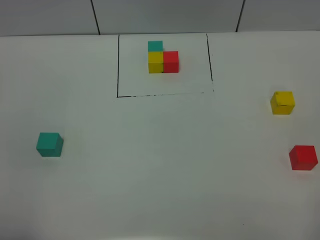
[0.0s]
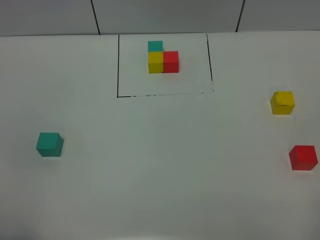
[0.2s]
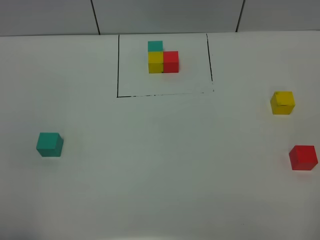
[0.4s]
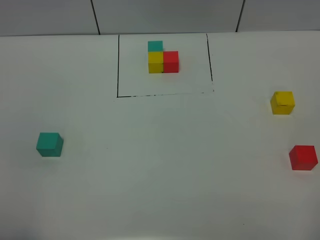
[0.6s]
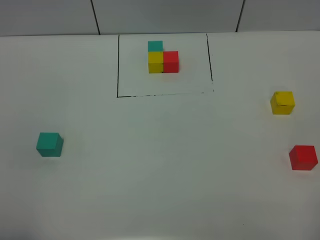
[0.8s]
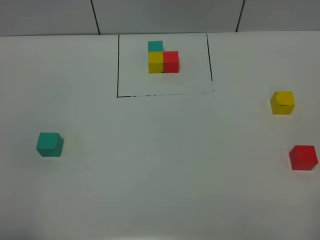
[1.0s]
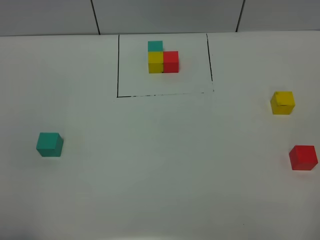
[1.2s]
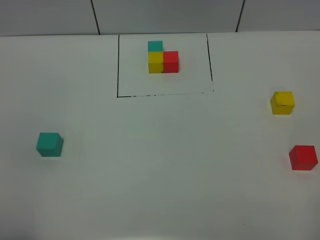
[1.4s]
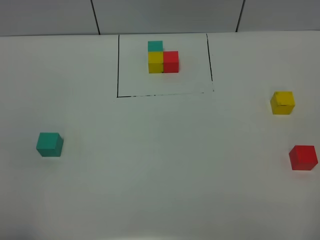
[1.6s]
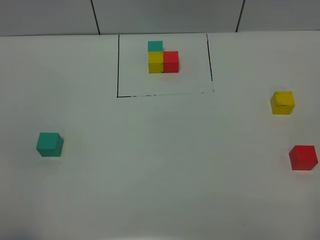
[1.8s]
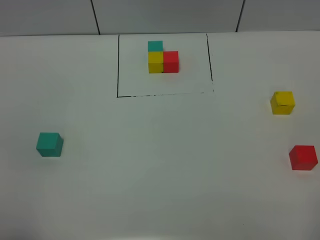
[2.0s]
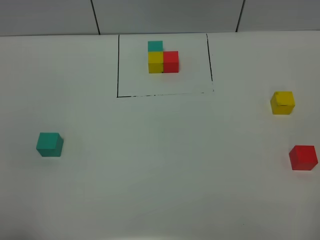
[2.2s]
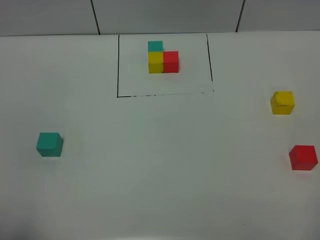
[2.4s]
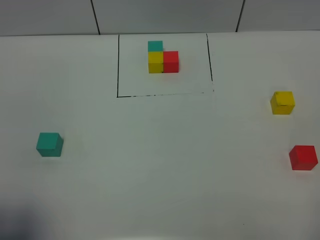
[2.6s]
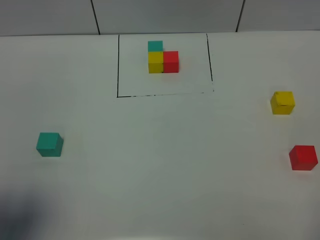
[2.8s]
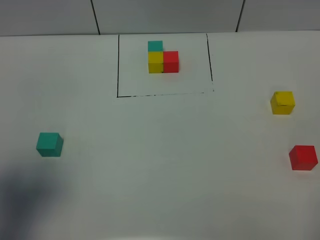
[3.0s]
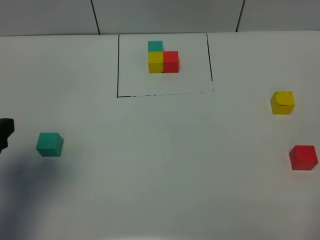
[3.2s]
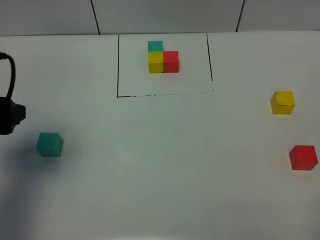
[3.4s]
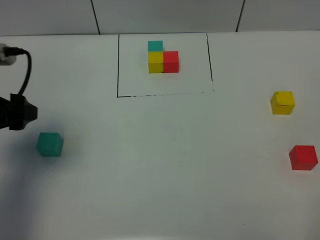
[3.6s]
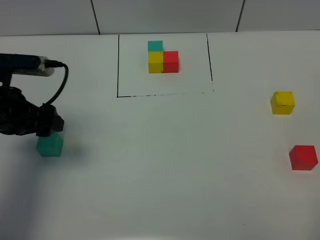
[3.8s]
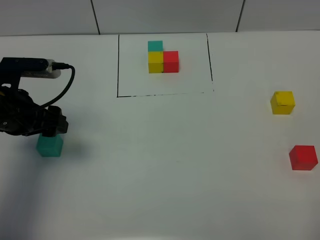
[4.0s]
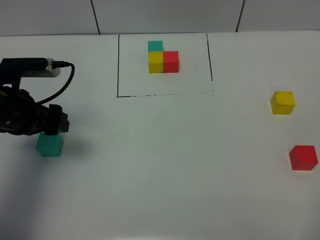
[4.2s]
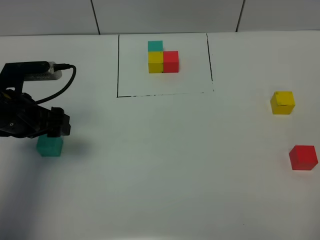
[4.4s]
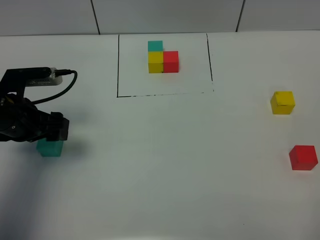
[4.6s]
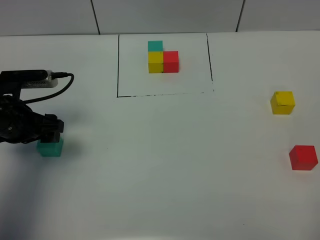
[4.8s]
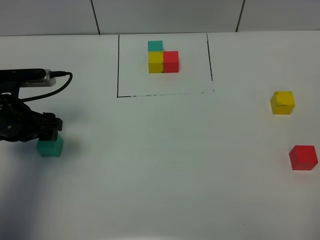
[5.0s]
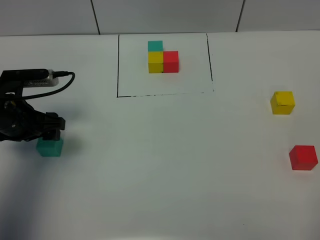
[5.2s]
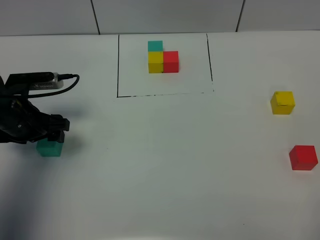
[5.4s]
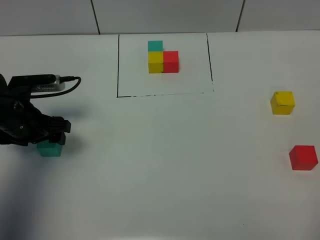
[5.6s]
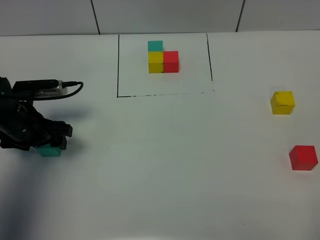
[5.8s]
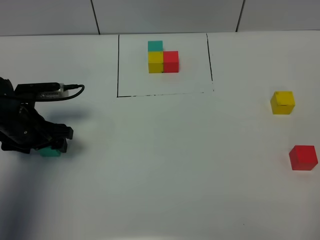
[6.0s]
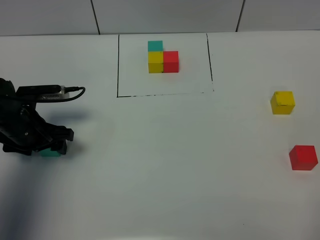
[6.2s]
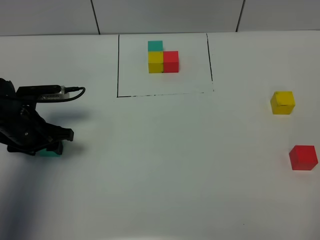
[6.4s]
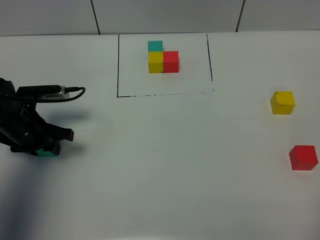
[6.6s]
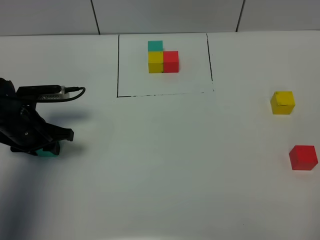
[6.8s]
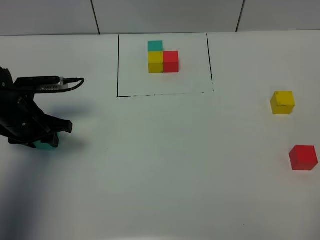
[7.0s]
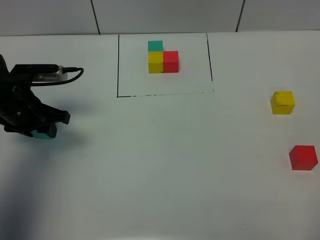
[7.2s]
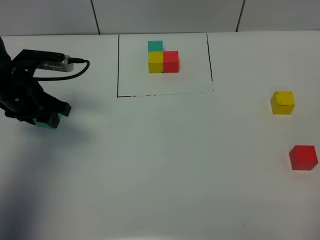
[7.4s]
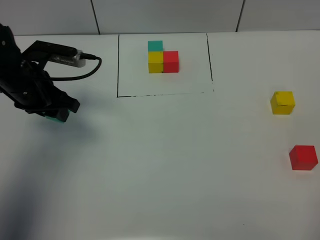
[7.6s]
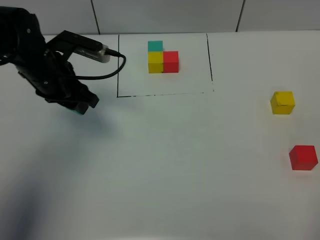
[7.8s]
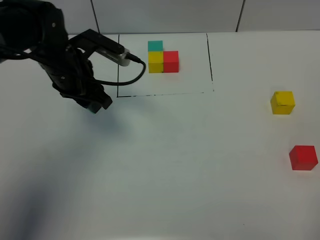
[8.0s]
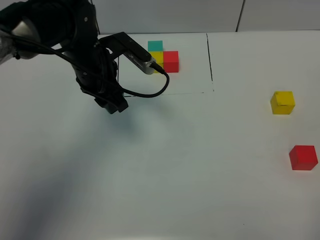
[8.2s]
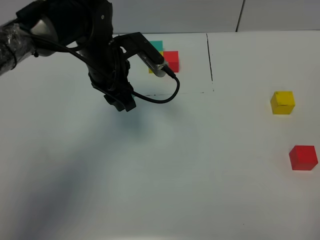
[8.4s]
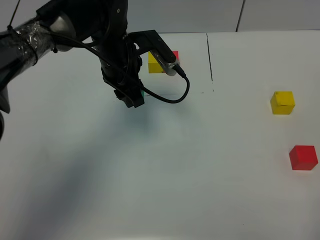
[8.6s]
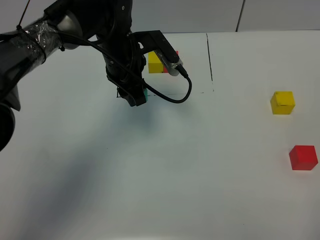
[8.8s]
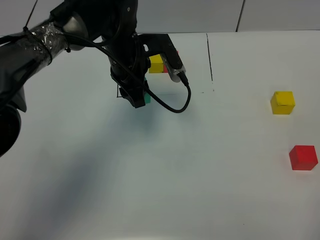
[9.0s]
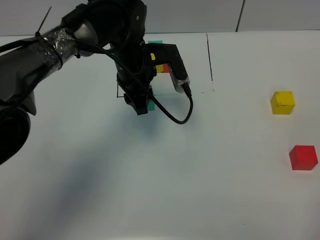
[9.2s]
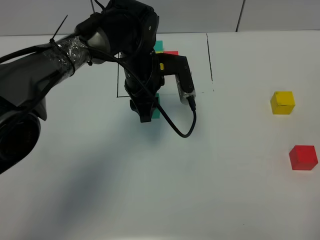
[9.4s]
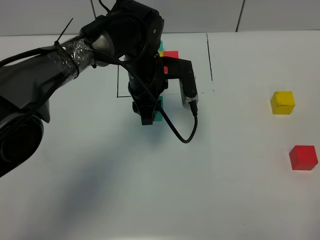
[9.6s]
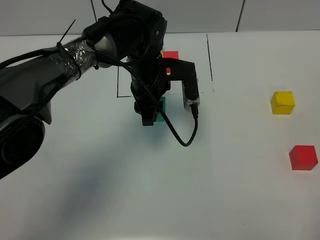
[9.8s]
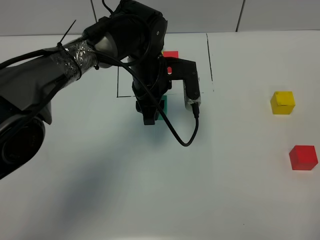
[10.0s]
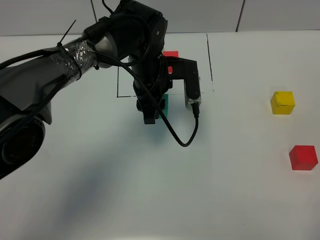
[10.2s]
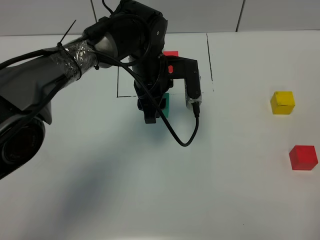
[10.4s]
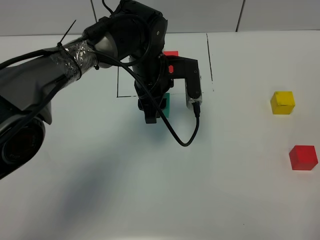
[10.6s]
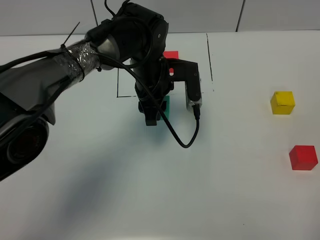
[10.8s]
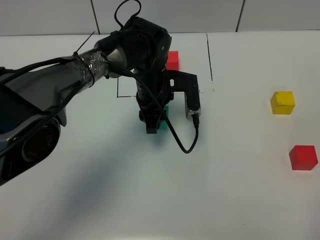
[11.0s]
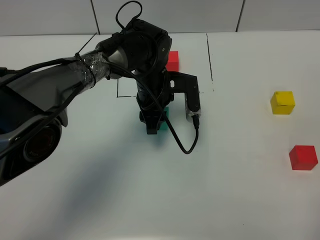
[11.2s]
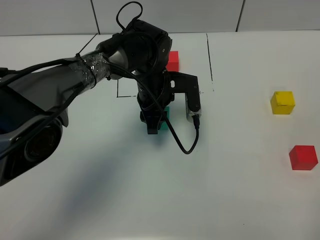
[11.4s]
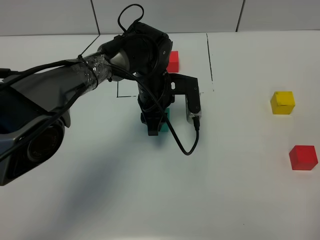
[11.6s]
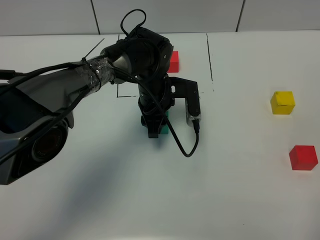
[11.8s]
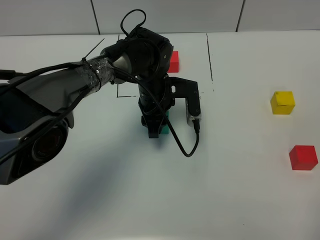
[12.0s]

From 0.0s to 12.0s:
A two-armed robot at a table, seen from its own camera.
Task of the whole recording: According to the building block template in front, assemble the scattered blocks together.
From 0.0s to 1.6s: The two grippers keep their place.
From 1.6s to 3.0s: The left gripper moves forward, approximately 15 cm, and opens up.
From 3.0s to 4.4s: The left gripper is displaced forward and downward by approximately 20 cm.
From 4.4s to 6.0s: The left gripper moves downward, some 5 cm.
From 6.0s to 7.6s: The left gripper heads upward, covering approximately 10 cm, and closes up.
From 7.6s to 9.0s: The left gripper travels to the right by about 15 cm.
From 10.4s to 12.0s: The left gripper is displaced downward by approximately 5 cm.

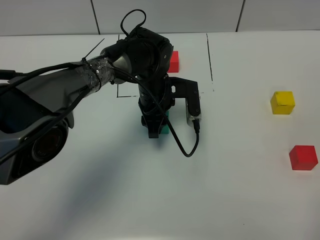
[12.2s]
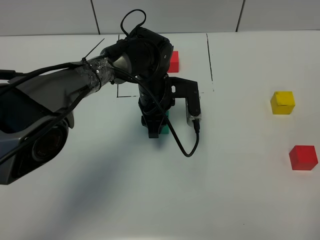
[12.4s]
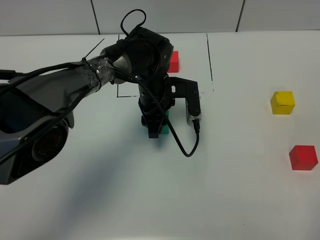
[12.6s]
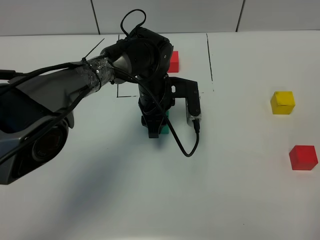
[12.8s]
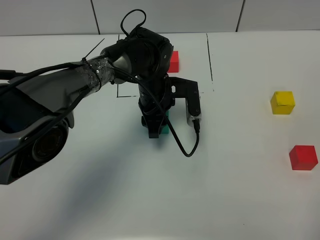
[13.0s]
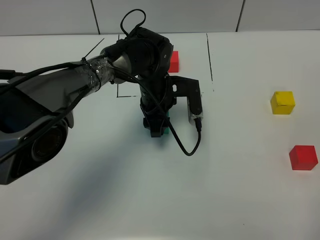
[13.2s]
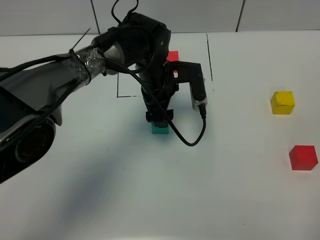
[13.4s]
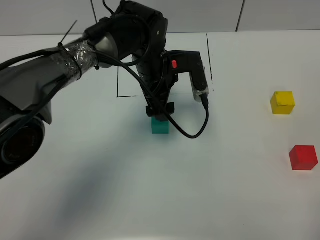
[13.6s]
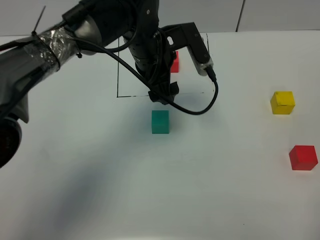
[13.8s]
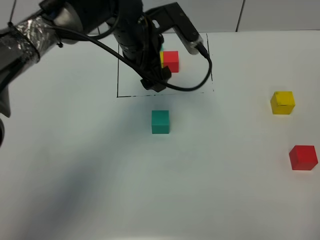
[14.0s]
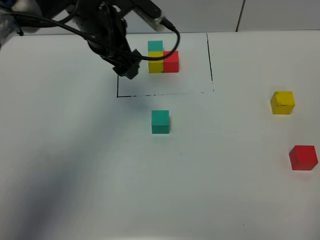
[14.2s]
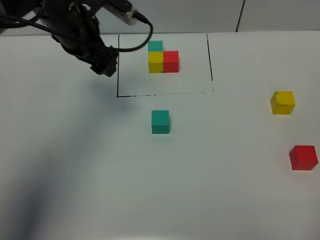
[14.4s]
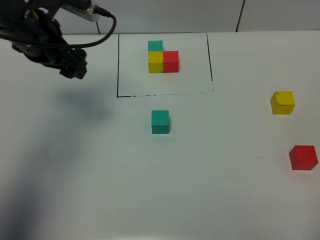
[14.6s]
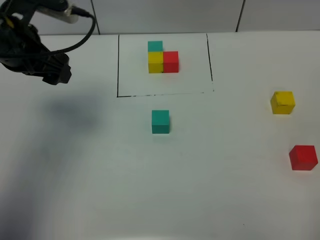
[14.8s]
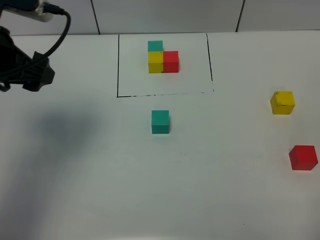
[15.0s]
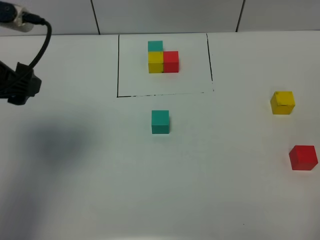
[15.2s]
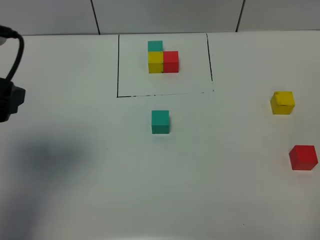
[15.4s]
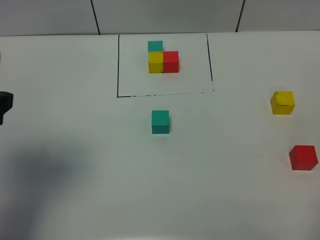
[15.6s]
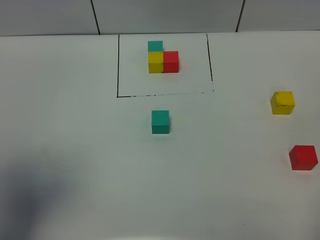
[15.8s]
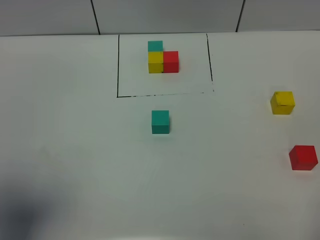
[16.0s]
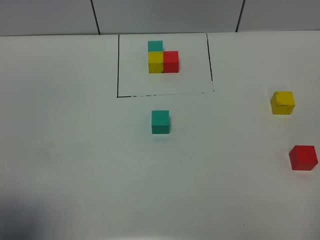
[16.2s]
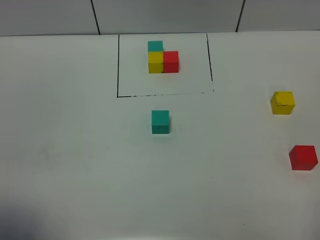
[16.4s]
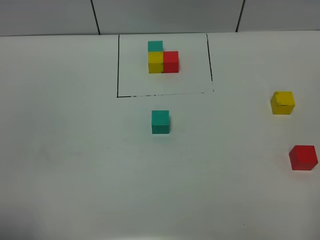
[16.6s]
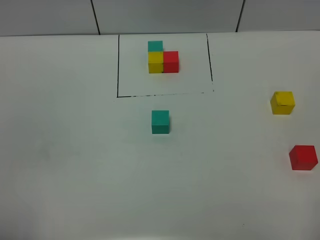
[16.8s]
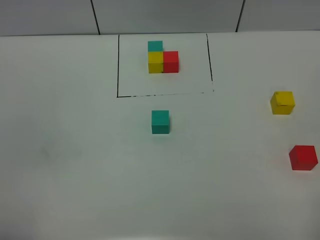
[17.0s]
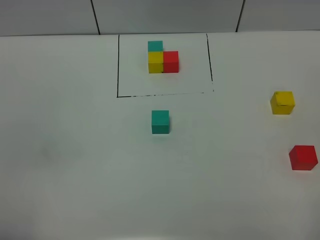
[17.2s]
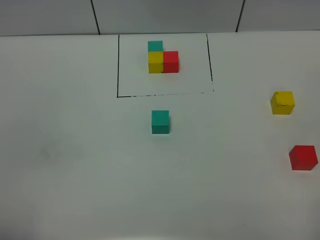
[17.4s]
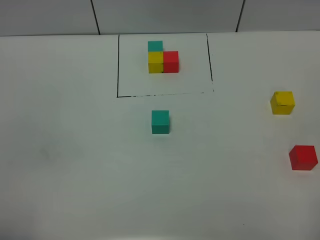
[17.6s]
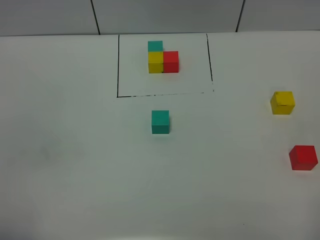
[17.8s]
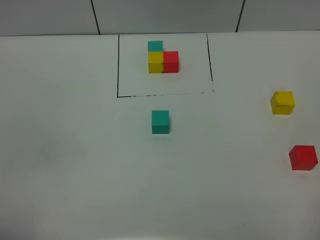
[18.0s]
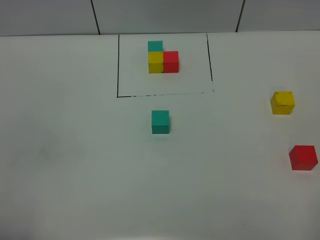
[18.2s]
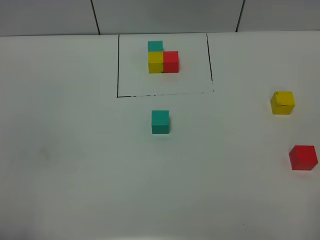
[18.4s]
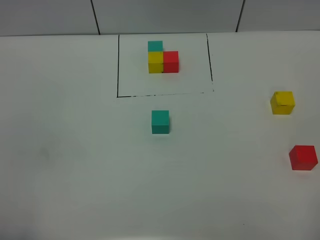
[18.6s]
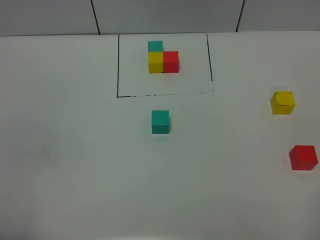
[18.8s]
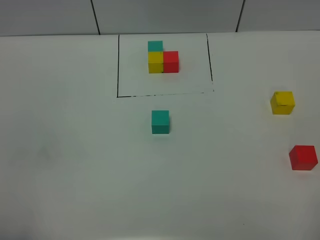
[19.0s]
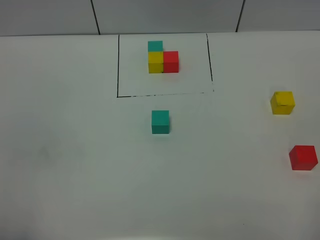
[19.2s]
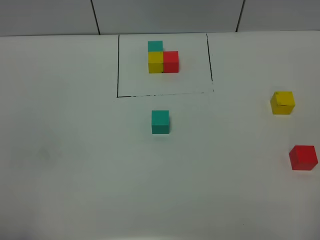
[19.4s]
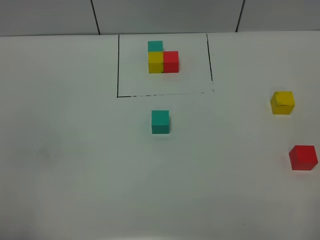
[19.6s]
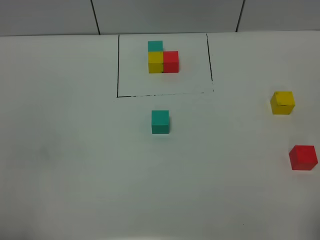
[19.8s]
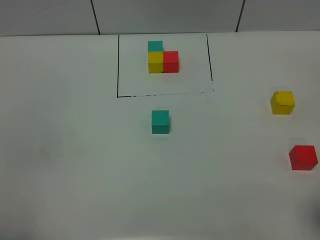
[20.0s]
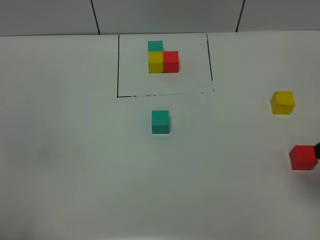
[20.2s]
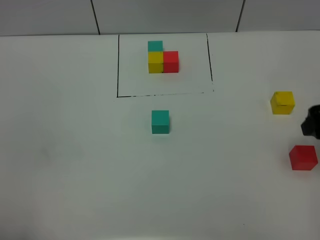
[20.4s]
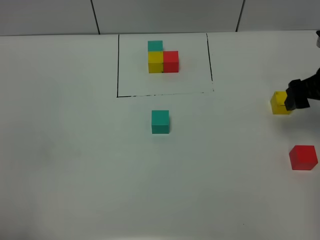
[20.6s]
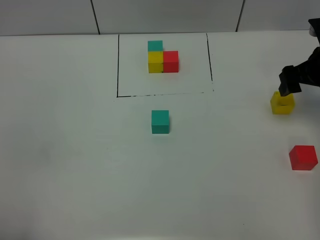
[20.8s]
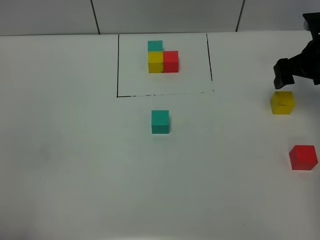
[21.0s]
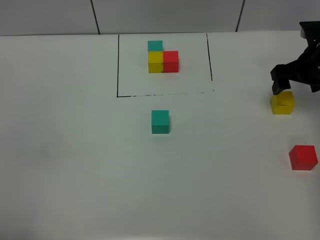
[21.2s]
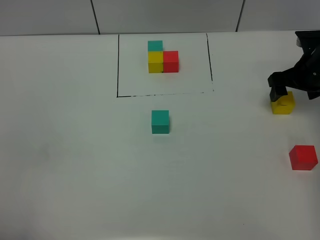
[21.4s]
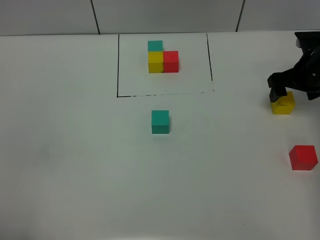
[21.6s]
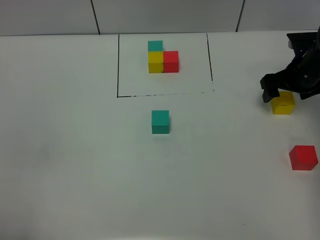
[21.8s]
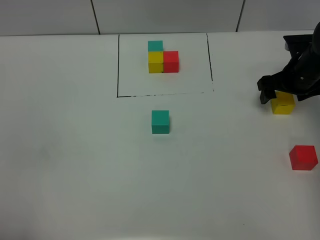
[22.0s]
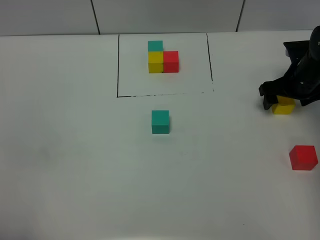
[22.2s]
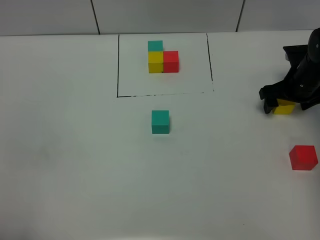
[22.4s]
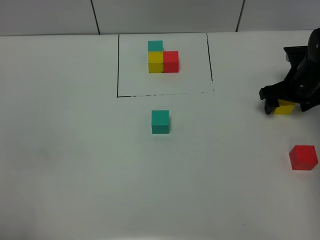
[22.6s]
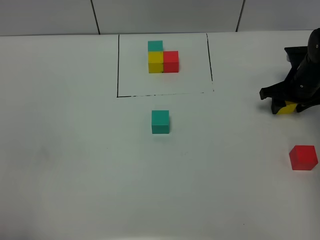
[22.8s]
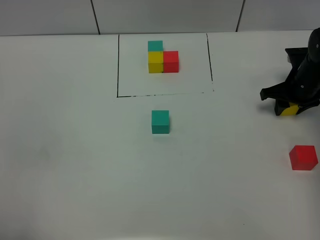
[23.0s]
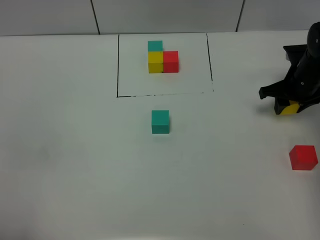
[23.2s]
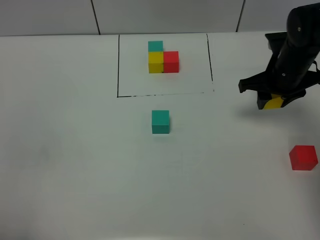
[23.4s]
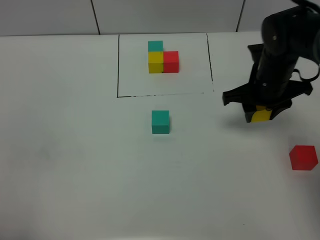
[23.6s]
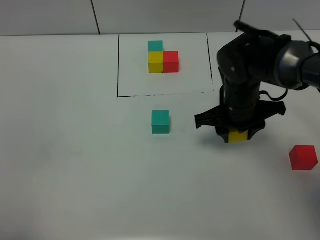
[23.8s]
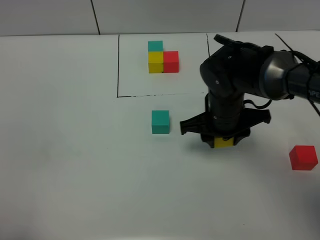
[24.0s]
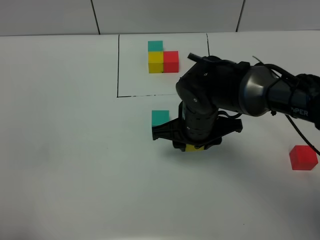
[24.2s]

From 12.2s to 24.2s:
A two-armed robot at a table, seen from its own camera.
Task of the whole recording: According to the building block template in front, assemble the scattered blocks together.
From 12.2s to 13.8s: The left gripper shifts roughly 10 cm upward, and opens up.
From 13.8s to 15.2s: The left gripper shifts about 30 cm to the left, backward and upward.
From 15.2s to 16.6s: The left gripper moves backward, roughly 25 cm.
From 19.8s to 21.2s: The right gripper heads forward, covering approximately 35 cm.
From 21.2s to 22.6s: The right gripper moves downward, about 5 cm.
From 22.6s to 24.2s: The right gripper is displaced to the left and backward by roughly 30 cm, and closes its fingers.
